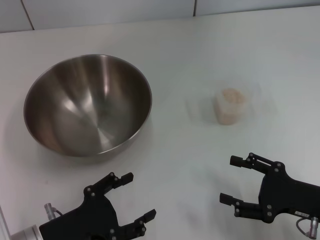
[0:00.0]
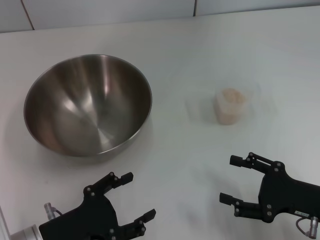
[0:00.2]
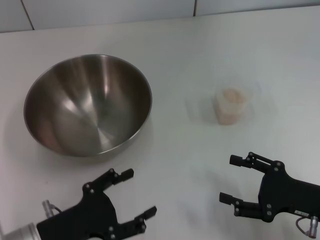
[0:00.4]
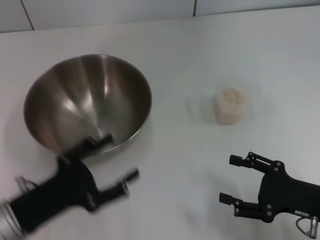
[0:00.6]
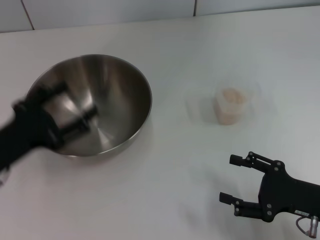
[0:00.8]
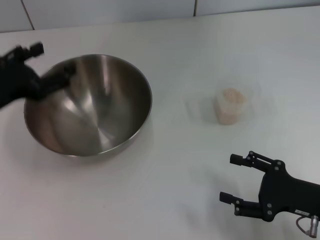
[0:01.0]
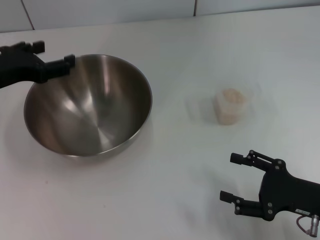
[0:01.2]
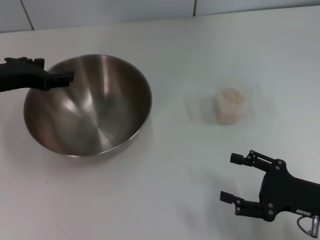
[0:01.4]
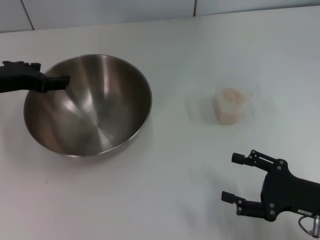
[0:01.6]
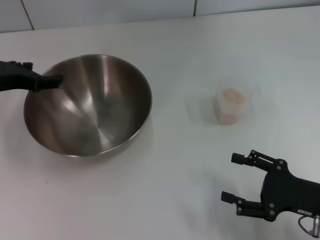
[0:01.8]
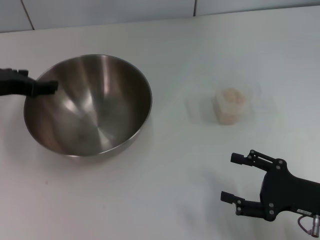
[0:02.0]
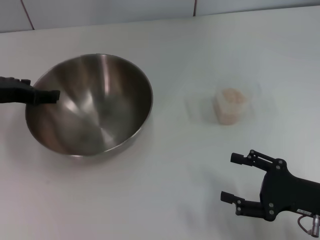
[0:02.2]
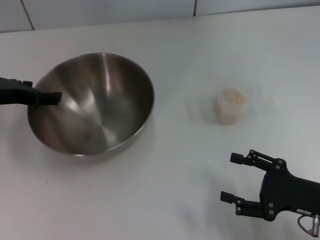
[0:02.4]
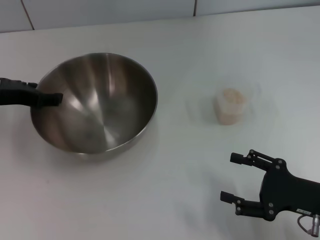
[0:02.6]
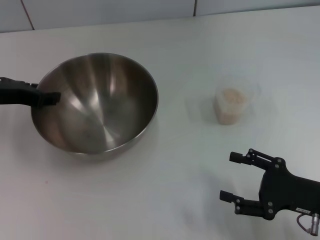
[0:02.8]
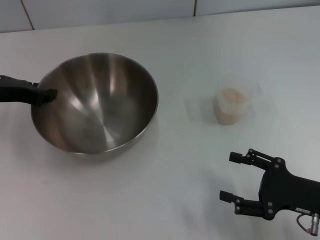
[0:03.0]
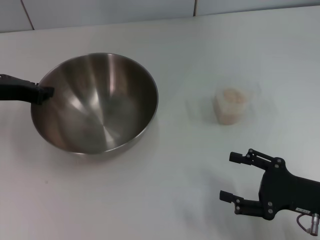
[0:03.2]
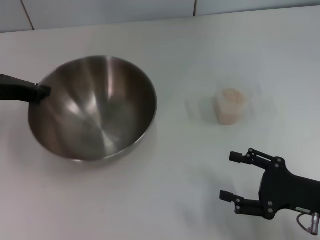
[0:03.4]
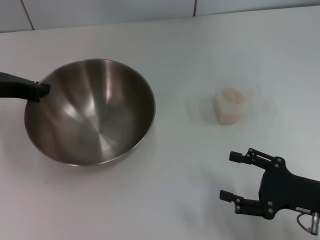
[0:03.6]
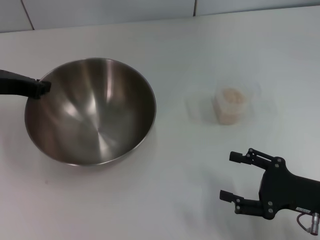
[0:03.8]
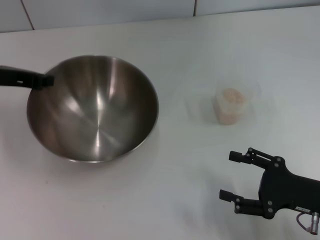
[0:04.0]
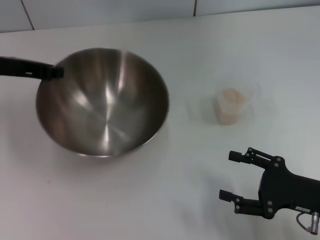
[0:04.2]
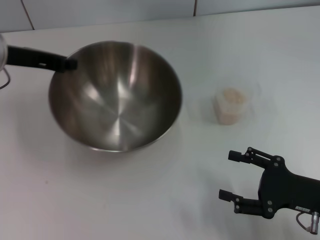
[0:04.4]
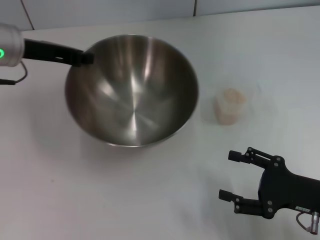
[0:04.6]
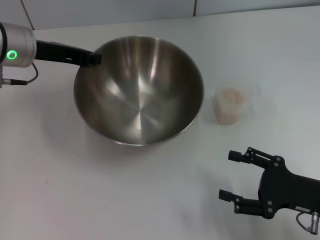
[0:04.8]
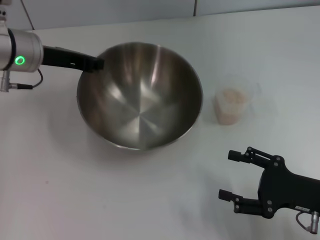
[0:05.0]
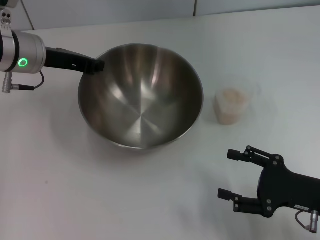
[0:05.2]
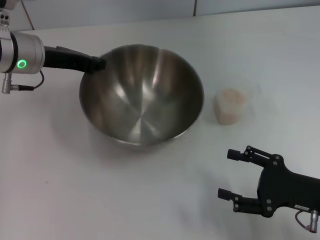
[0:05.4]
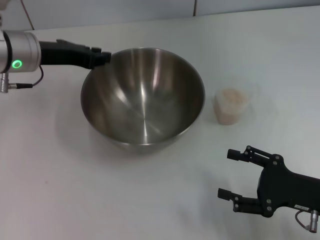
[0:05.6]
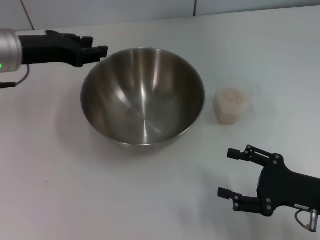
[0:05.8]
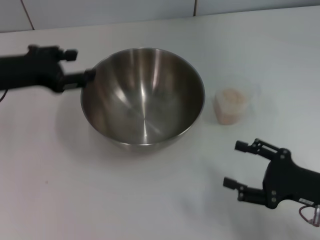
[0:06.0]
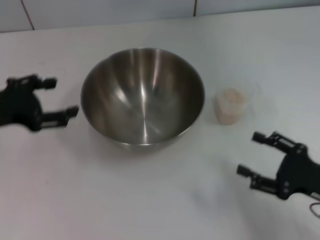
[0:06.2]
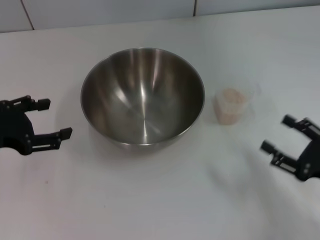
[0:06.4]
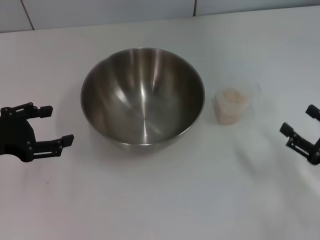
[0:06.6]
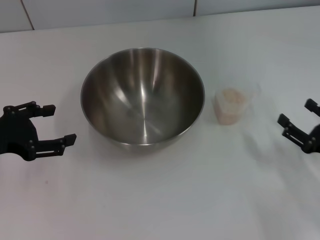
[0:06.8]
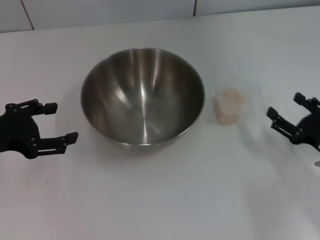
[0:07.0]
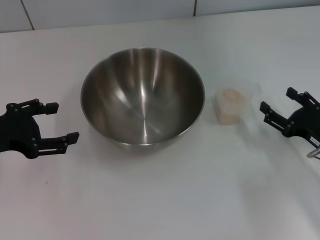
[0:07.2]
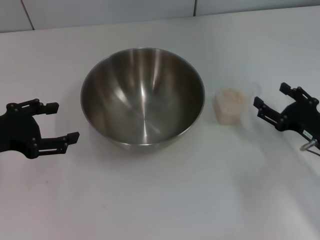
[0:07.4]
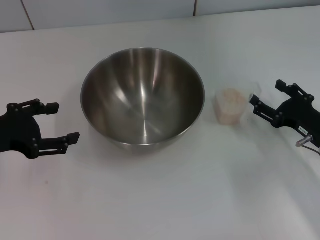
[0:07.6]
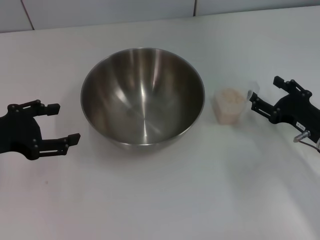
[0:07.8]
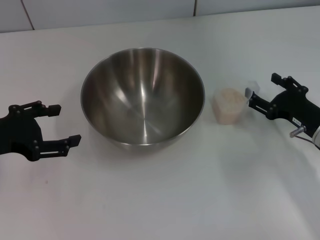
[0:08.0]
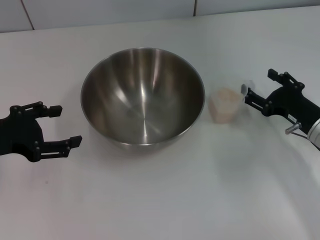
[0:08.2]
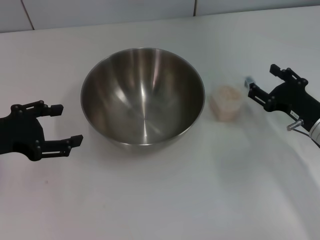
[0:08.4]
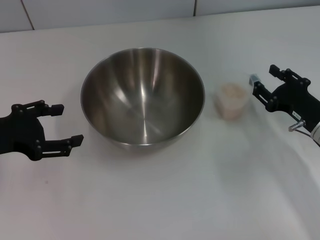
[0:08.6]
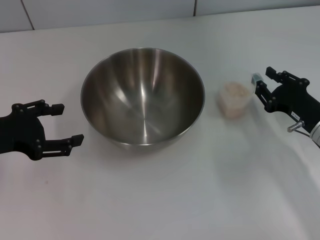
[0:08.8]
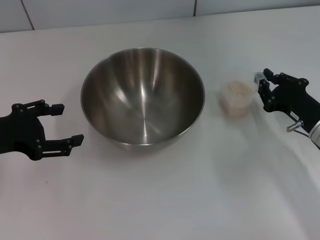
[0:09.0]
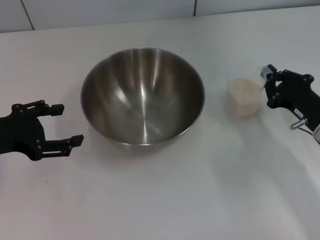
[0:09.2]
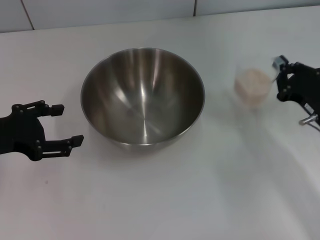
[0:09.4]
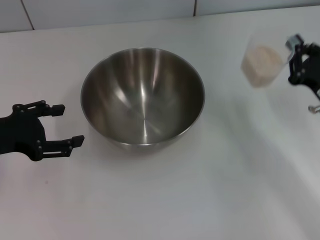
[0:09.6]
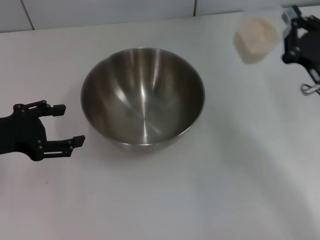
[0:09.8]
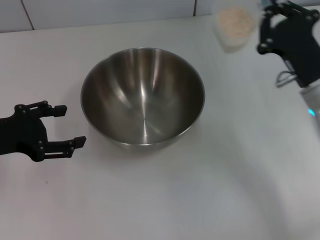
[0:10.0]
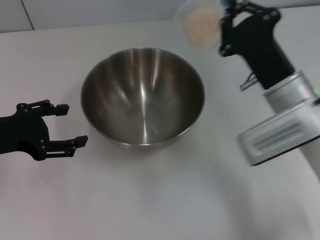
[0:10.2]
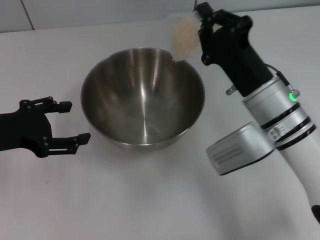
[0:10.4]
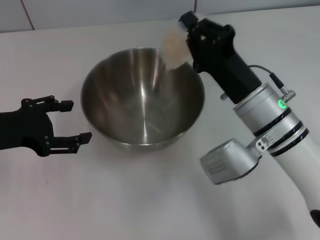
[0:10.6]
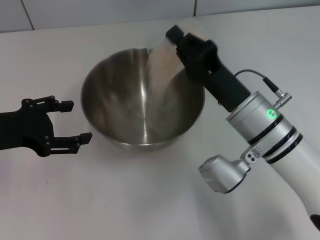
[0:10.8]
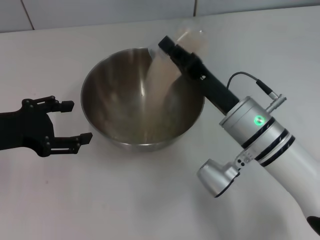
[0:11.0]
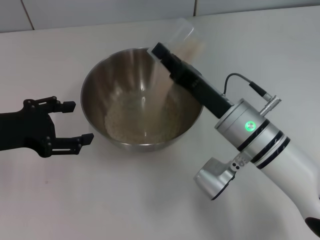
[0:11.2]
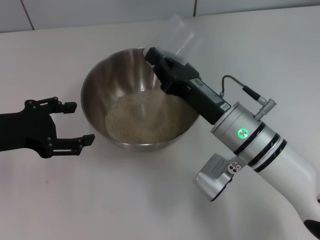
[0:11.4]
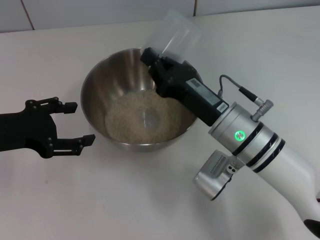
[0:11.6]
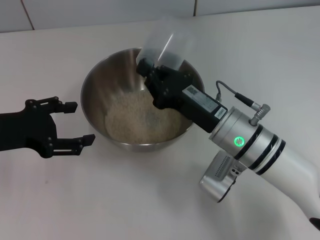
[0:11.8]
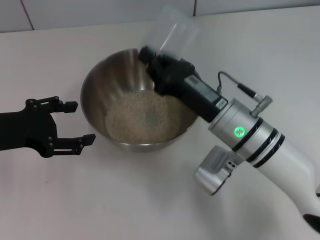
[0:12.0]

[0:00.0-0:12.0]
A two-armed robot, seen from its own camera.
Task of the whole recording: Place the bowl in the middle of the table with one hand and pour the rice from the grain cup into it with the other hand.
Step, 0:00.0 to 0:04.2: Pick up the bowl with the left gripper.
Step, 0:04.4 to 0:06.0: Place the bowl in the center of view with the left gripper.
Step, 0:06.2 to 0:09.6: Pick up the cup with rice in it with the right gripper.
0:00.0 to 0:01.6: The left gripper moves forward and upward, some 25 cm.
0:01.6 to 0:03.0: The grippers move only a little.
0:03.0 to 0:04.4: The left gripper shifts by approximately 5 cm, and closes its fingers.
0:04.4 to 0:06.0: The left gripper opens up.
0:06.0 to 0:07.6: The right gripper shifts roughly 5 cm forward. Meanwhile the left gripper goes about 5 cm backward, and opens its fingers.
0:07.6 to 0:09.0: The right gripper closes up.
0:09.0 to 0:10.4: The right gripper shifts some 15 cm to the left and upward, and closes up.

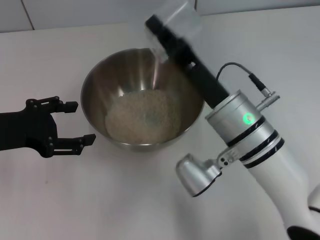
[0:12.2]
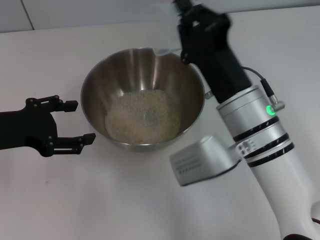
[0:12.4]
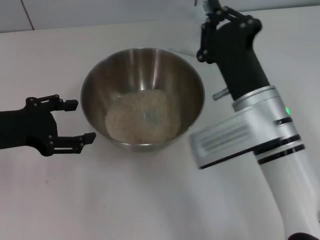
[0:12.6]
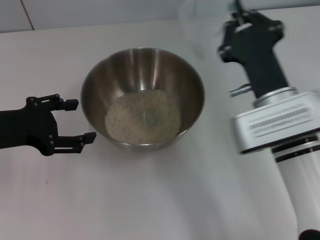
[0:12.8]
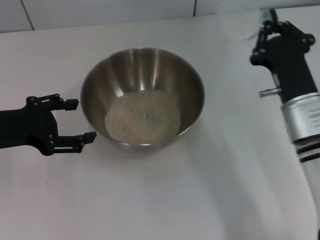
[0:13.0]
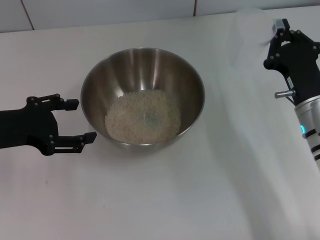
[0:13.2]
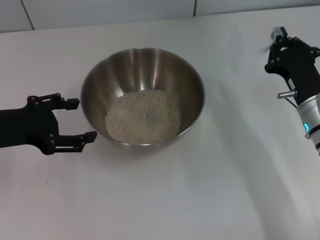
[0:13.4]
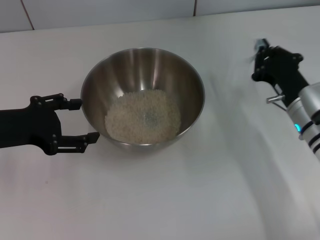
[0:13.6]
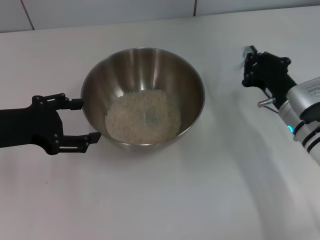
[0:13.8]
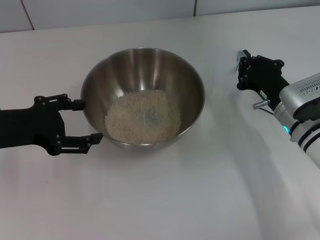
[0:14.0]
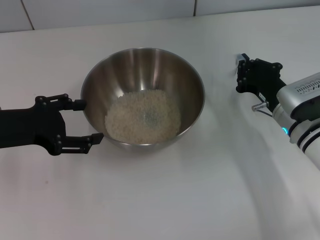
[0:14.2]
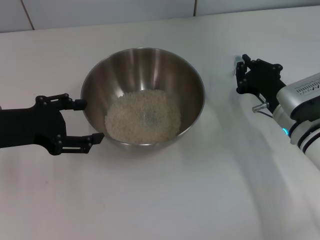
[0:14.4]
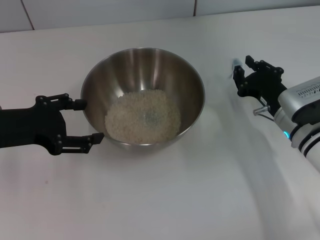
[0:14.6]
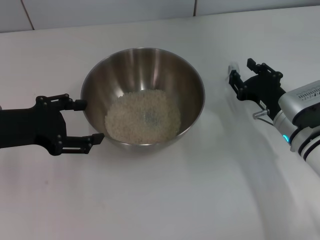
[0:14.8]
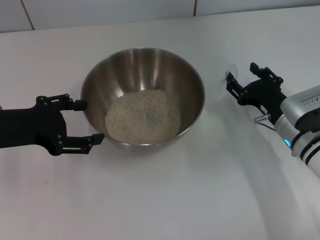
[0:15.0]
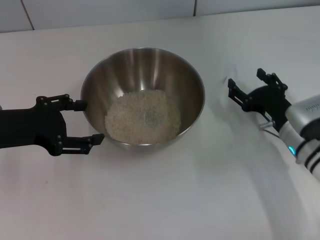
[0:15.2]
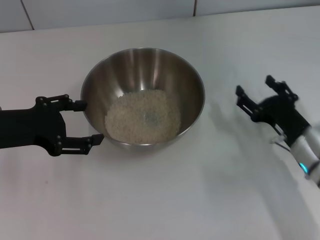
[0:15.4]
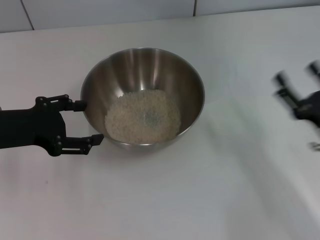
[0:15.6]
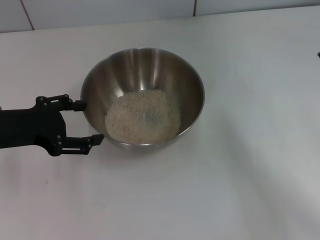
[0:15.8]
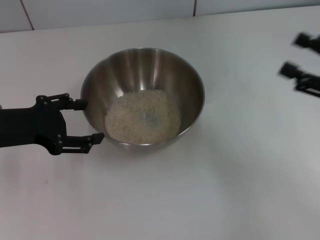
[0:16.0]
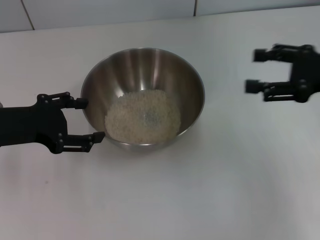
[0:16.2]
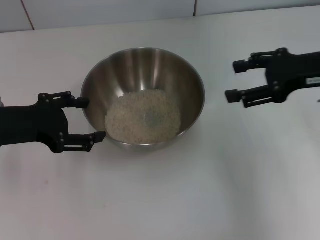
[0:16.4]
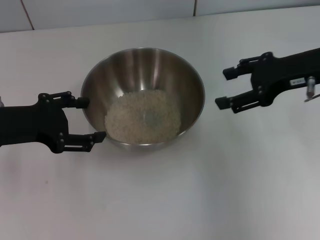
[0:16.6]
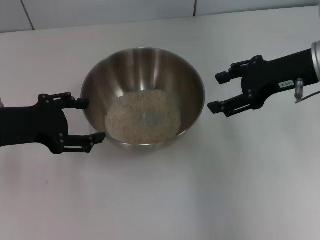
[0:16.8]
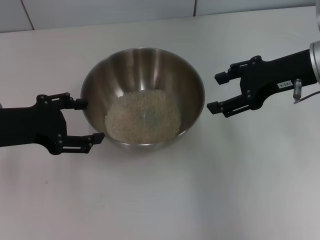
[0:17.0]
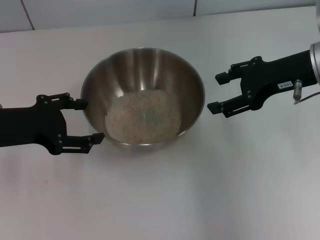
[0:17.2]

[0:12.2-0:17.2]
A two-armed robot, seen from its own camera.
Task of the whole recording: Place the bowl in the middle of the table with one hand and pour the rice from the grain cup into it with the other hand.
Step, 0:12.8 to 0:15.4: Place the cup on the table with the right gripper.
0:12.2 to 0:13.8: The right gripper travels to the right and downward by roughly 15 cm.
0:13.8 to 0:15.6: The right gripper moves backward, roughly 10 cm, and opens up.
0:15.6 to 0:17.2: The right gripper moves upward and forward, some 20 cm.
